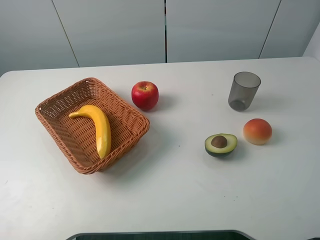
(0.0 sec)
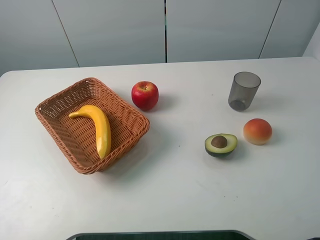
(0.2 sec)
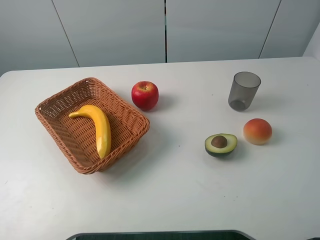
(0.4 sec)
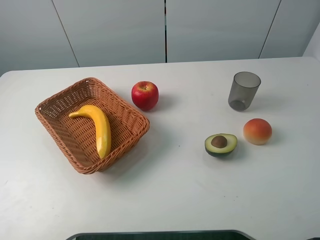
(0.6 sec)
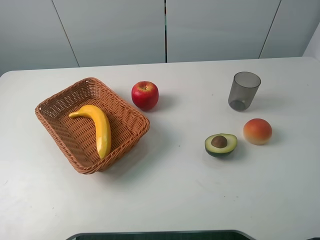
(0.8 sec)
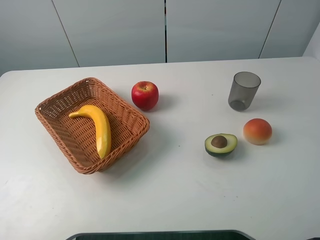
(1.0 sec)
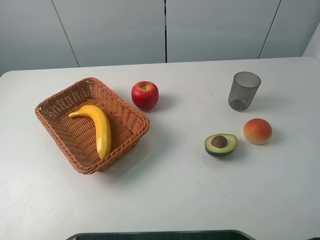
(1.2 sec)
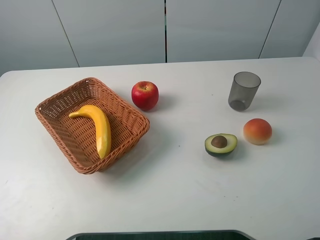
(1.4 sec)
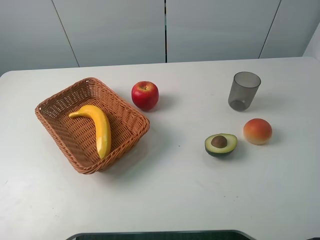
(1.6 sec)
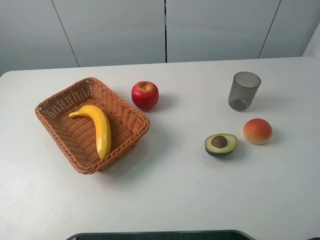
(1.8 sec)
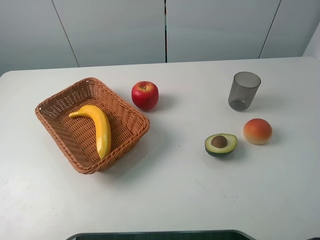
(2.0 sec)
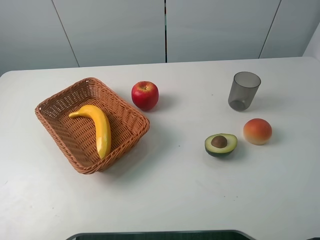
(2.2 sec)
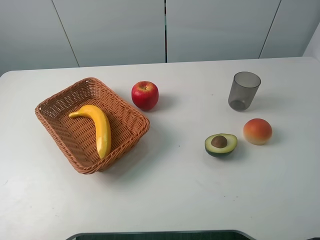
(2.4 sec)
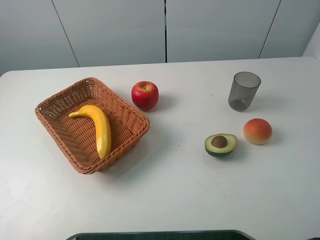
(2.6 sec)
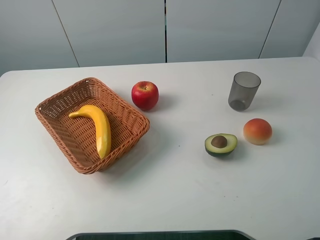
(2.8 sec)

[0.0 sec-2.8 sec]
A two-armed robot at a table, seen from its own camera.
Task of the whole recording: randomly pick up an item from the table and put it in the basket.
1.4 sec to 2.8 sec: Both grippers stay about where they are.

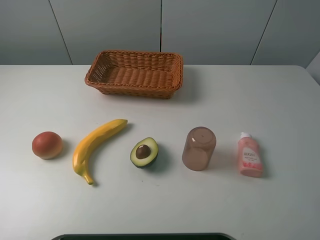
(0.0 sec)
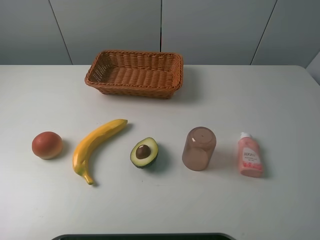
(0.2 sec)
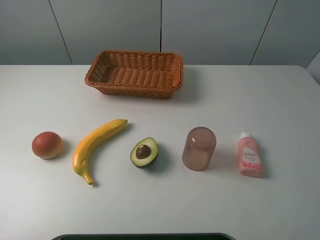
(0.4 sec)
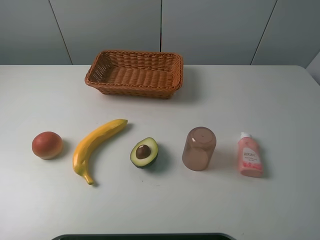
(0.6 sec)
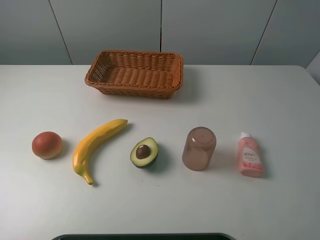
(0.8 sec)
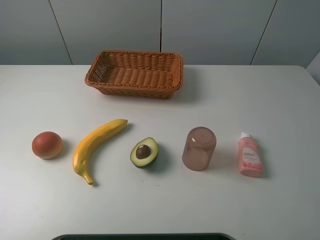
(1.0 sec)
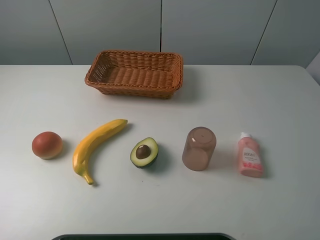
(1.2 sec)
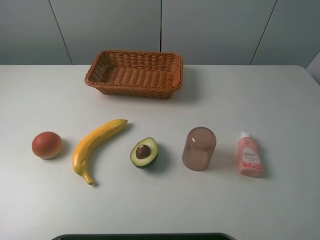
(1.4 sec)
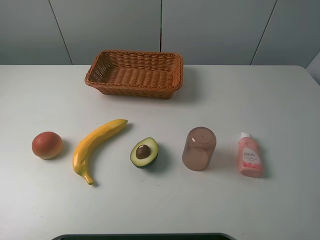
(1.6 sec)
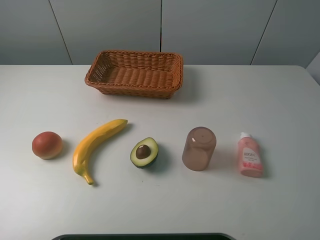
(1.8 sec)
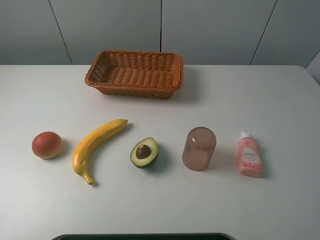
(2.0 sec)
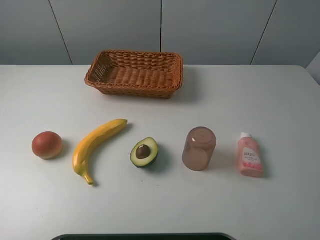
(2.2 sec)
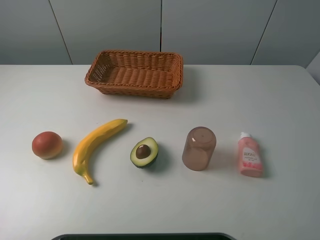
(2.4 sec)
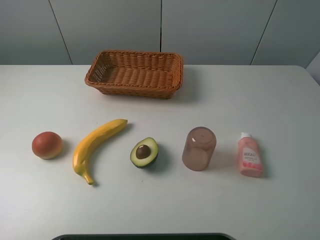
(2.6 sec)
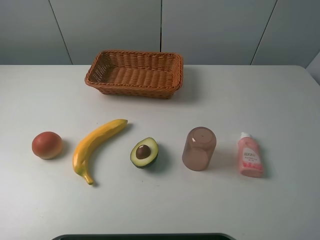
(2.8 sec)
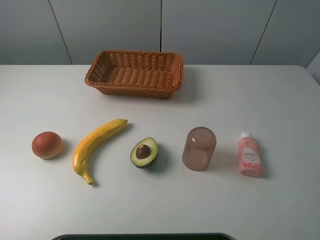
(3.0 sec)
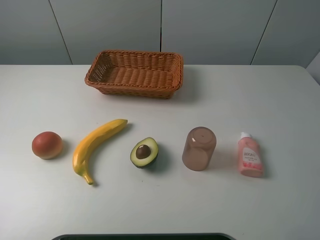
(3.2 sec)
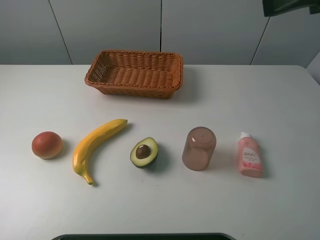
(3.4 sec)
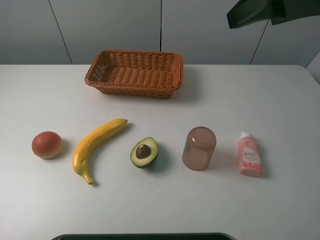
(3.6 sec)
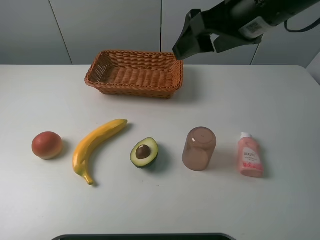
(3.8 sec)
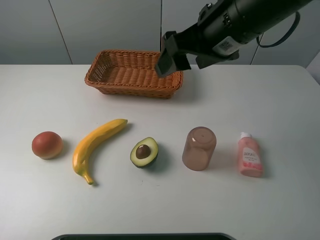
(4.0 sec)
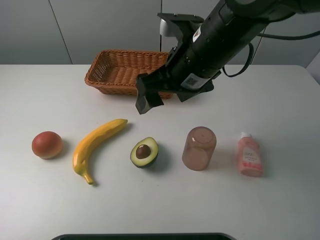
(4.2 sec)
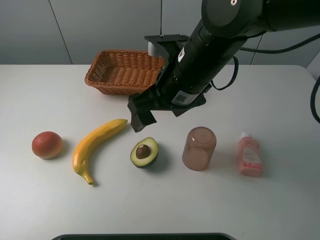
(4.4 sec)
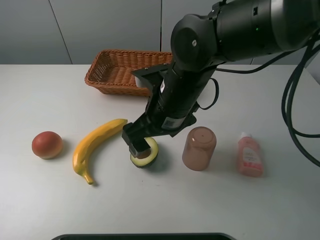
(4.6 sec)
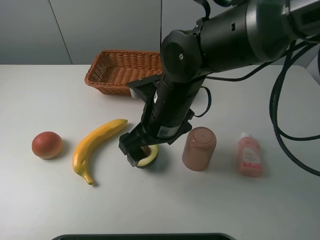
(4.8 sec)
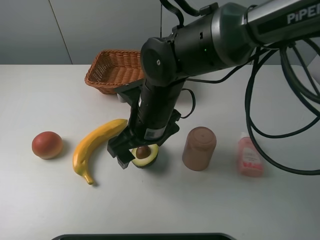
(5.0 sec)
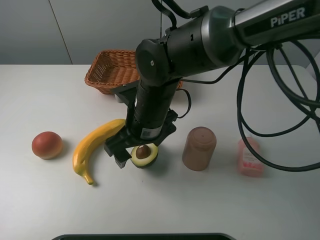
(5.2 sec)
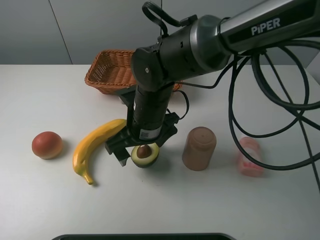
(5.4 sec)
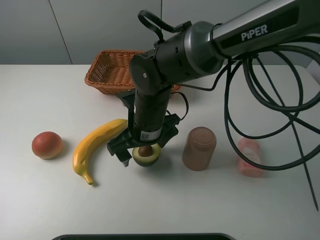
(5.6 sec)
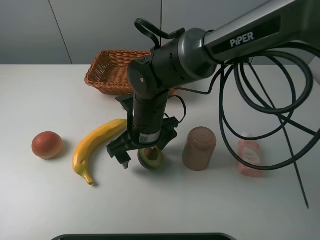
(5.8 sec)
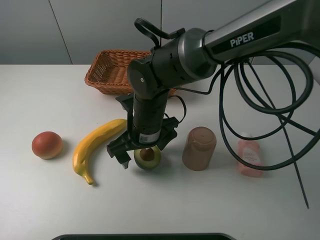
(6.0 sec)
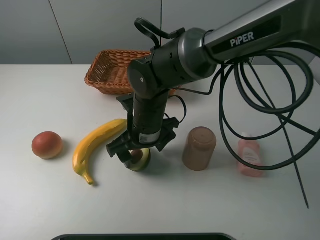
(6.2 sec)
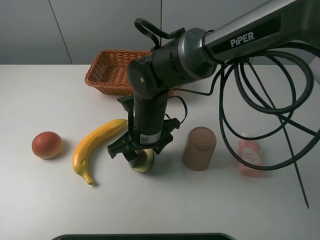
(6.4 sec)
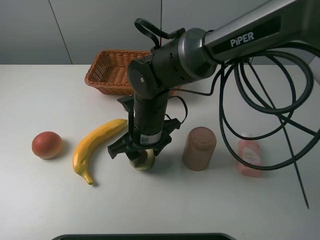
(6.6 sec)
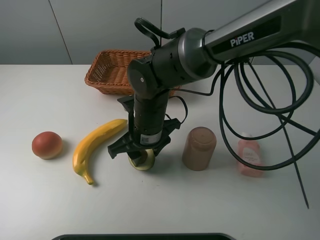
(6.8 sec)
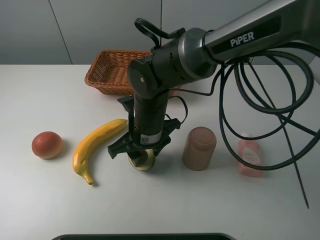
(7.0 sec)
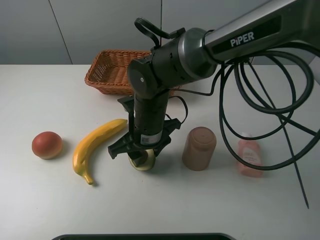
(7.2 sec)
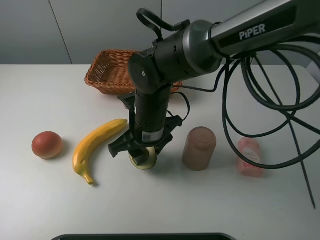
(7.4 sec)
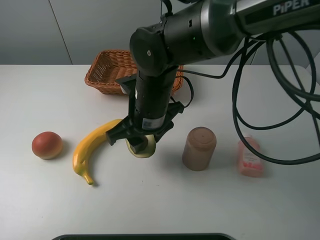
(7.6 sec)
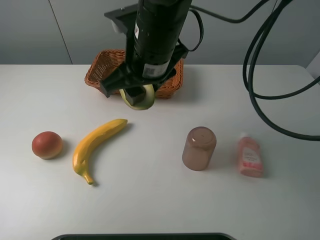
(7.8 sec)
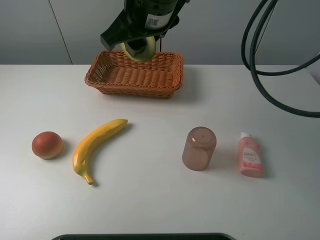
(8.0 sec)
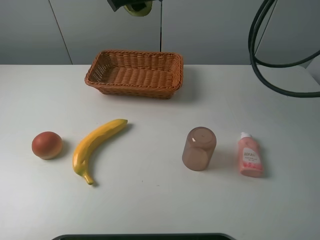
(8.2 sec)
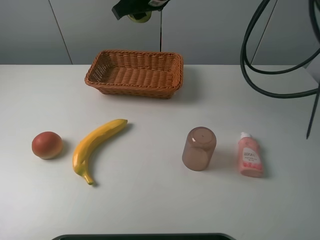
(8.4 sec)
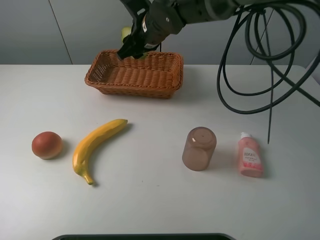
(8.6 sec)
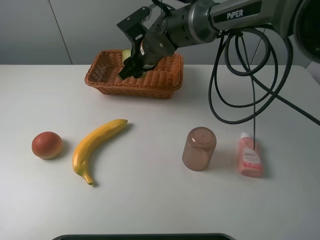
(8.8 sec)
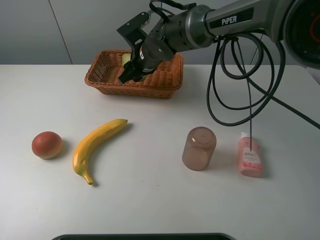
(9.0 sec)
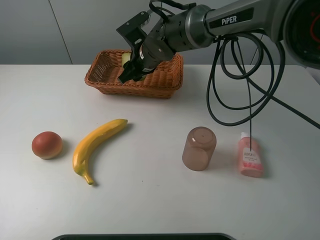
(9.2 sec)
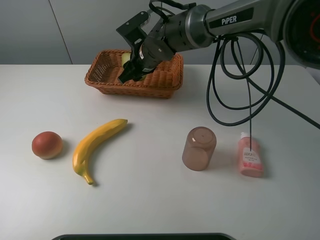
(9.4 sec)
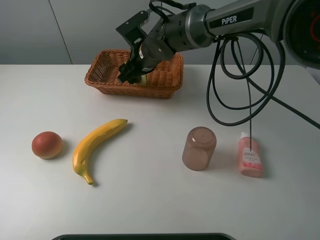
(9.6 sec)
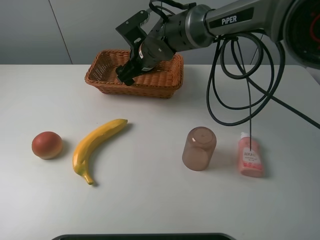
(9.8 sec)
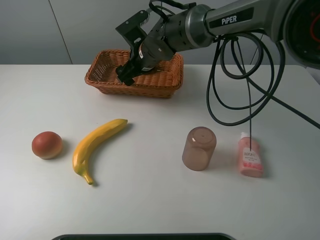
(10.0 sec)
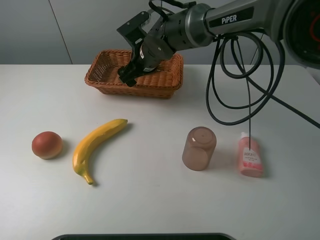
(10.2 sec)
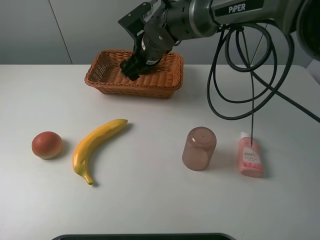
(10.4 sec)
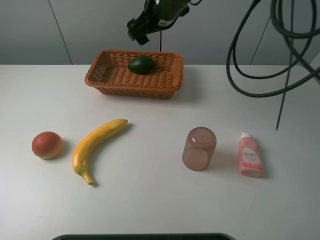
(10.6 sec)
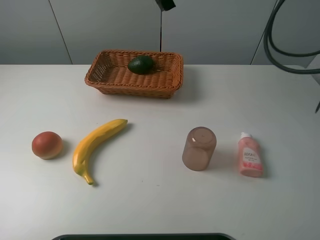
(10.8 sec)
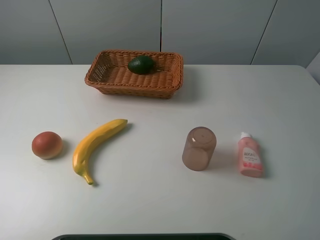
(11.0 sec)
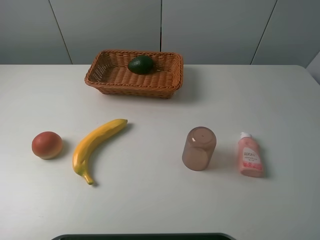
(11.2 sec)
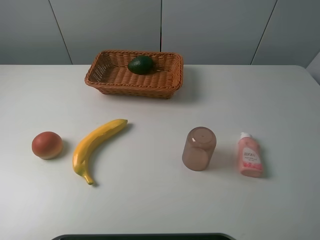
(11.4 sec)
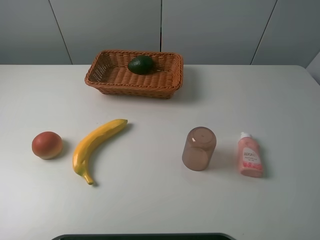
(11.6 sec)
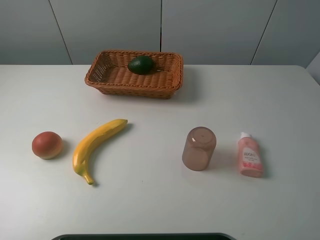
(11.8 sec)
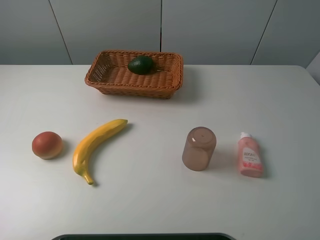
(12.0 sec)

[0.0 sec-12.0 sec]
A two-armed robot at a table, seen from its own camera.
Task of the whole recording: randomly pick up an item from the table and put it in the basket.
Step, 0.0 sec to 6.4 sec: Grasp the avocado with the right gripper.
Step, 6.6 sec to 10.4 sec: Place the avocado into the basket with the right gripper.
0.0 sec to 1.6 sec: Neither gripper changes place.
3.0 sec to 4.4 sec: The right gripper heads to the left, downward and forward, covering some 30 cm.
4.4 sec to 6.0 sec: The right gripper travels downward and to the left by about 10 cm.
6.0 sec to 7.6 sec: The right gripper moves upward, about 5 cm, and closes.
7.6 sec to 9.0 sec: The right gripper travels forward by about 15 cm, and travels upward and back again, about 15 cm each way.
9.0 sec to 10.4 sec: The right gripper opens up.
10.4 sec to 12.0 sec: The right gripper moves backward, to the right and upward, about 50 cm.

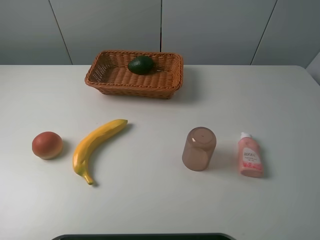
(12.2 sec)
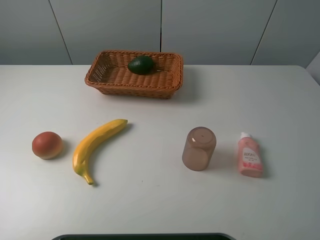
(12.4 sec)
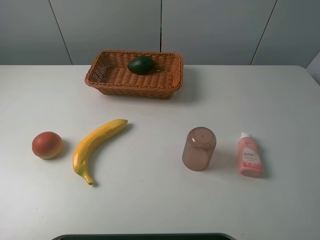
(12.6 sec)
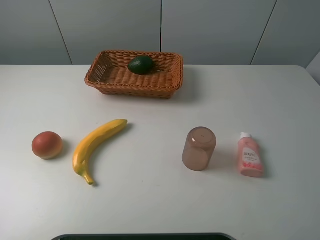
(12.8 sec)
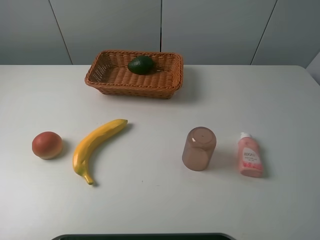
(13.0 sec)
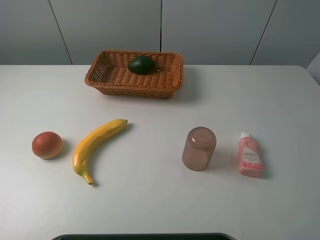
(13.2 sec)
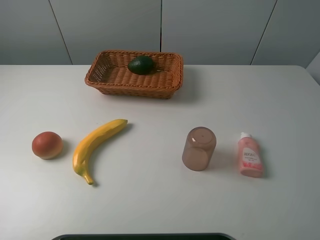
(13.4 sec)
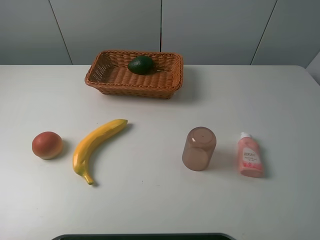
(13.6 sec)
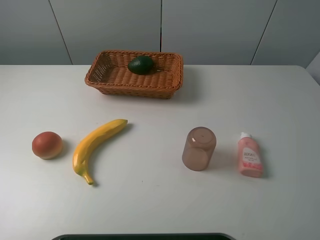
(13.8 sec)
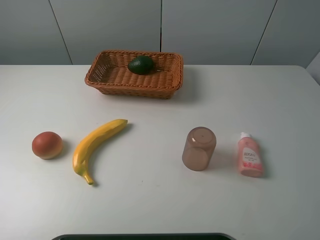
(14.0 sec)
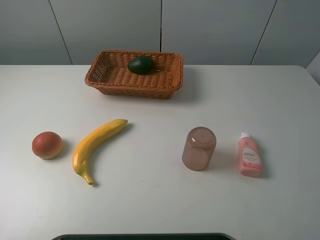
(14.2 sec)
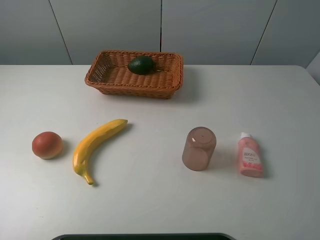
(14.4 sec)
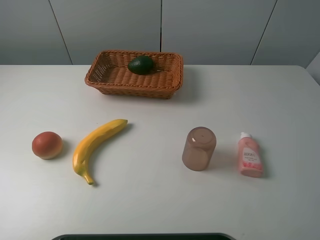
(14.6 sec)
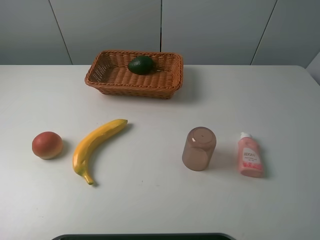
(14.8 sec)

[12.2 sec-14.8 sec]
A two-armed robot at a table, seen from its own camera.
Task of the whole recording: randomly pick up an item from the table and put it in the basket.
13.4 sec to 14.8 sec: The two grippers keep their place.
